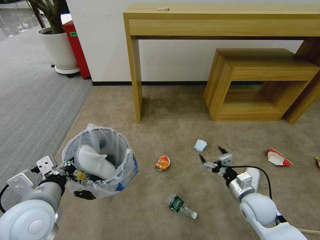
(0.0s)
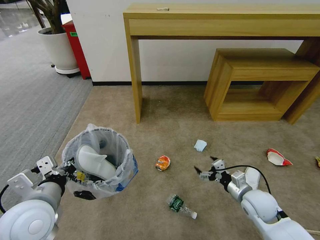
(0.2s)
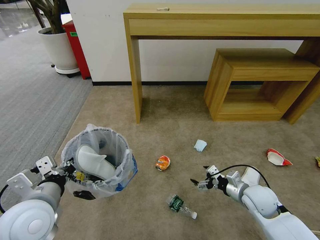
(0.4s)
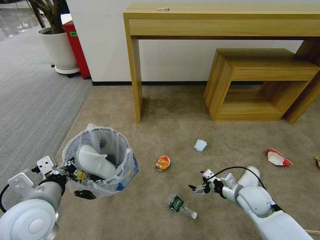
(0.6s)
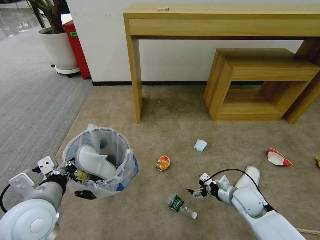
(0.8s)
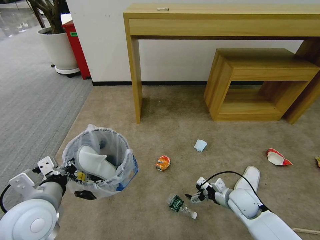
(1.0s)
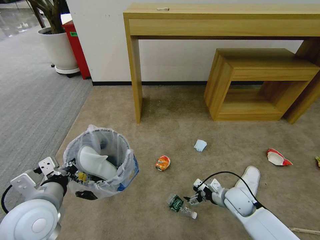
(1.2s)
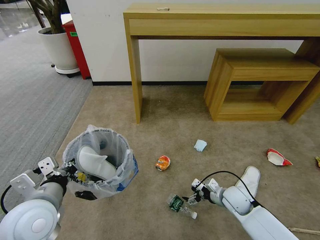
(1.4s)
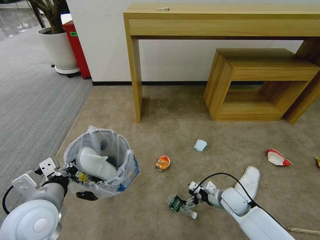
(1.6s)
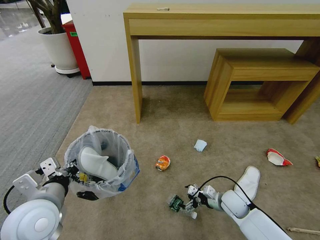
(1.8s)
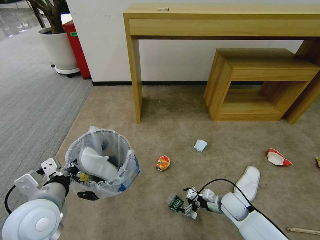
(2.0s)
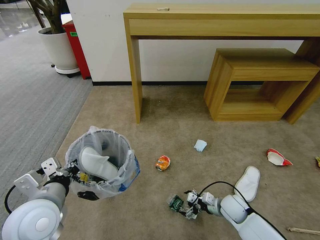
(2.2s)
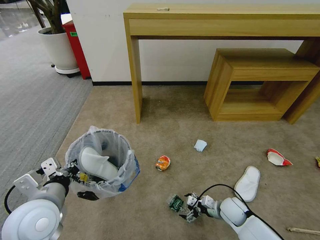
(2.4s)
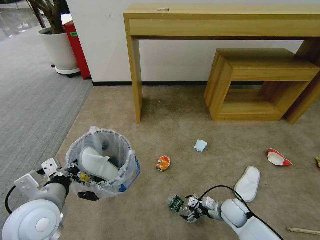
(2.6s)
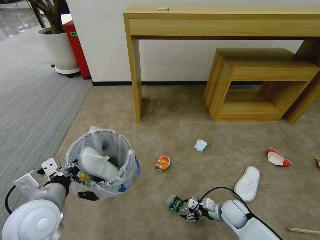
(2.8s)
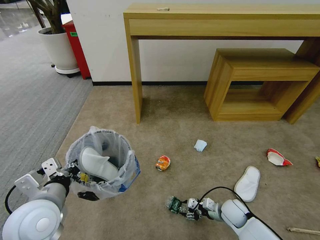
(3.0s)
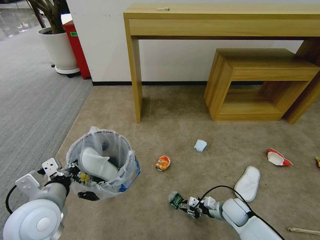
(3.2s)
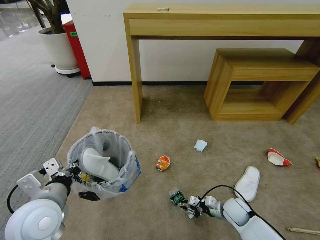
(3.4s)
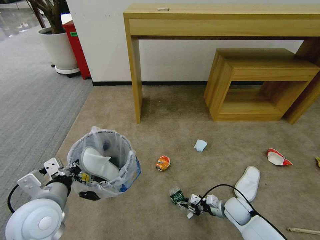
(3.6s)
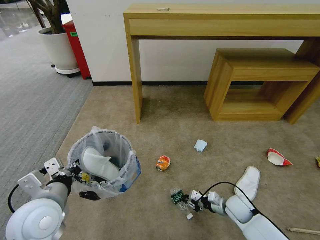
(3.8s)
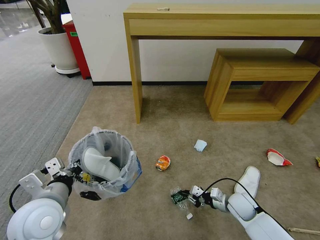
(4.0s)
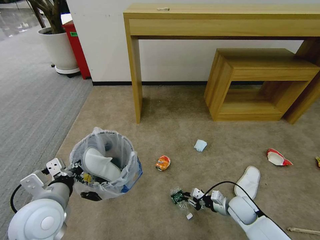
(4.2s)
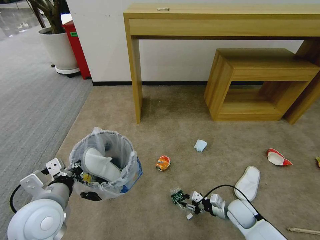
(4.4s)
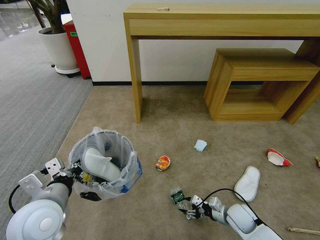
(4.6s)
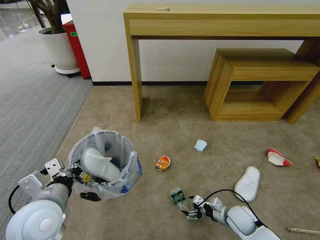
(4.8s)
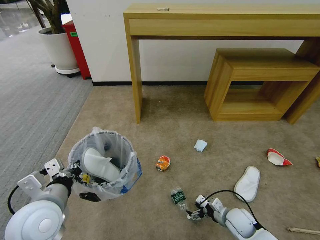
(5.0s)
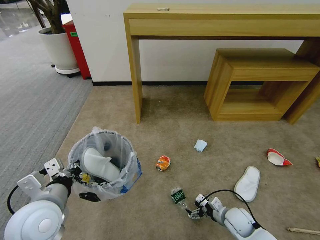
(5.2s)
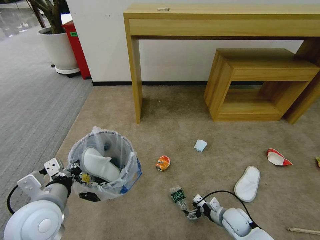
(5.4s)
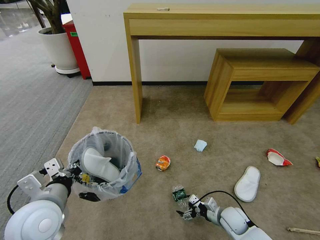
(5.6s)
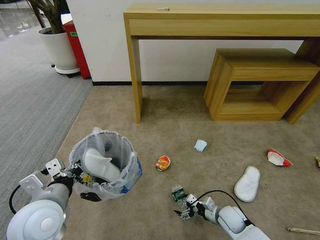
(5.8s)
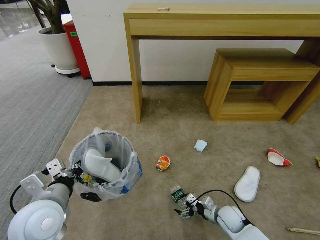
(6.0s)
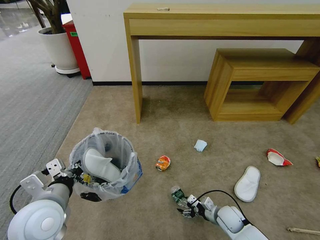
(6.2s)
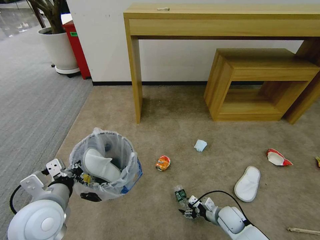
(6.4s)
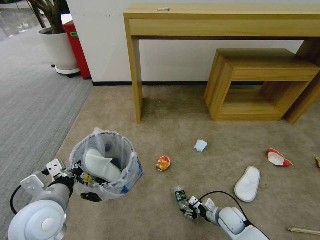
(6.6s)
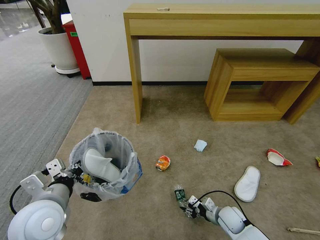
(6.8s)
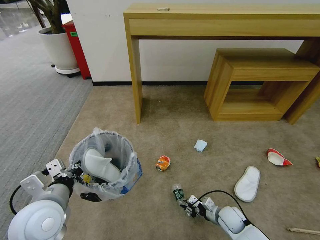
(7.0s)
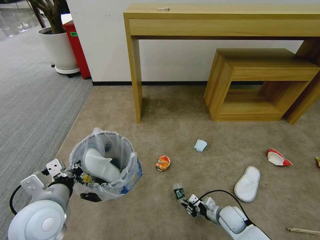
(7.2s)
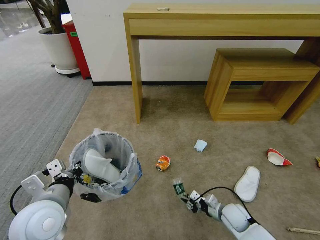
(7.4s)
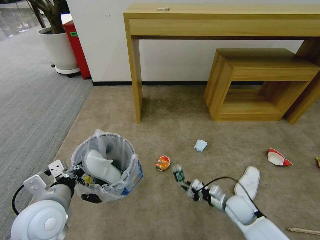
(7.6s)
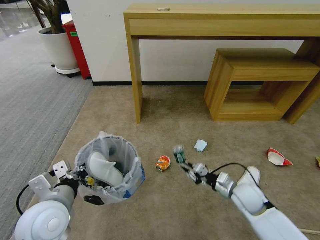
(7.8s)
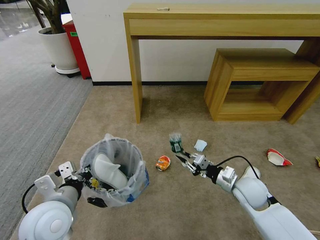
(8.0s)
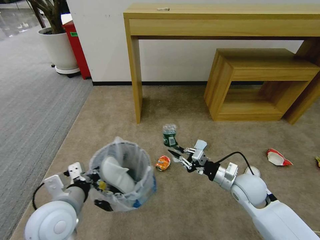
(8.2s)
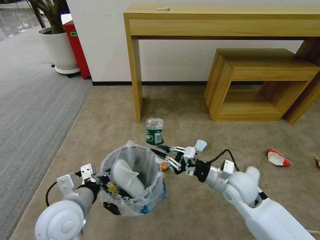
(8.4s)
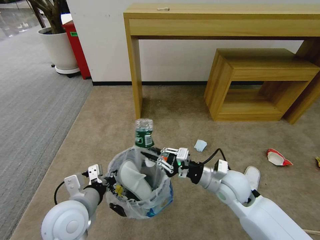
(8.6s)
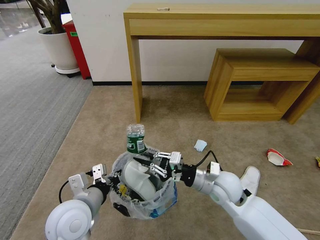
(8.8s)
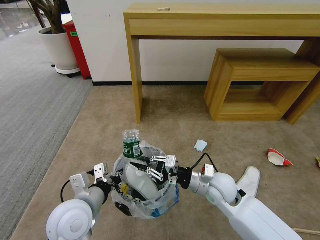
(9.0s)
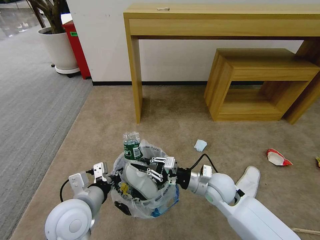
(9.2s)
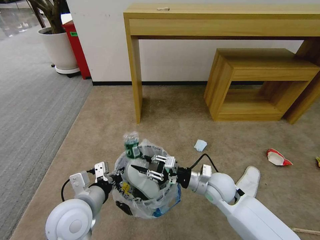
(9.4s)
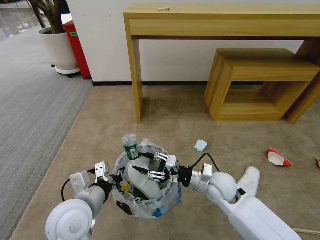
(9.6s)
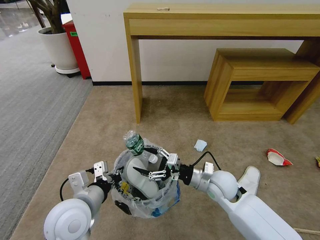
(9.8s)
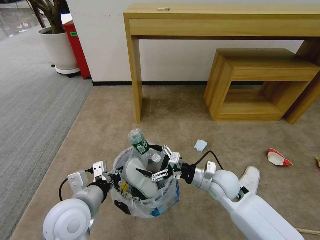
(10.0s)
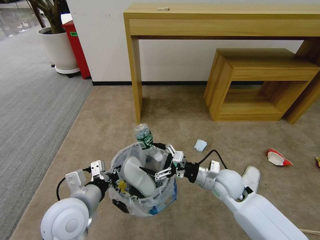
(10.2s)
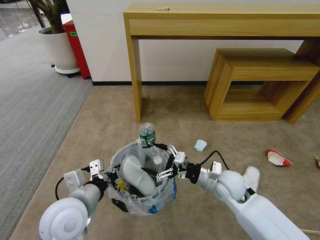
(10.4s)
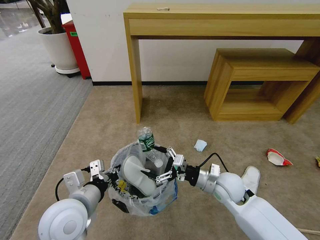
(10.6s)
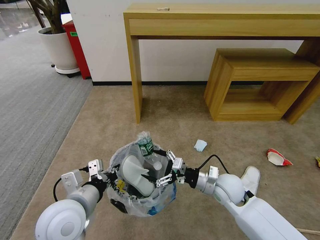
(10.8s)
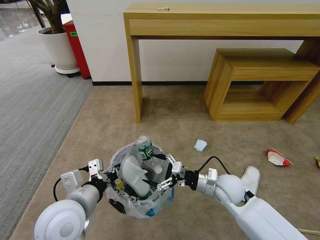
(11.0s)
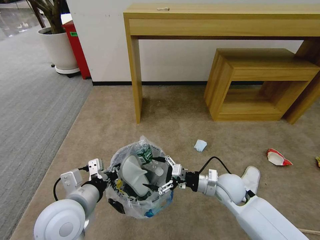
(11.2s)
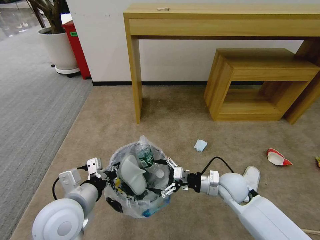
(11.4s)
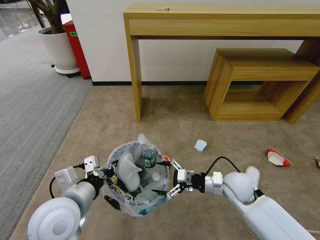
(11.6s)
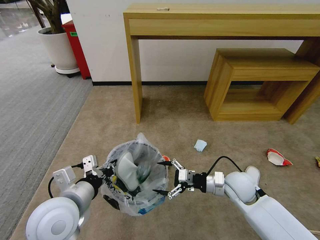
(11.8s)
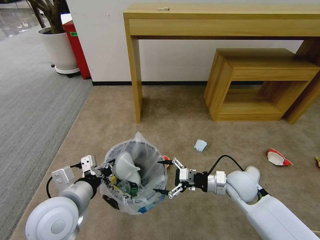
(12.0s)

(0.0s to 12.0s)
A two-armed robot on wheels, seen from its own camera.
Task of the whole recording: Pick up the trash bin and place the garbage on the floor into it.
0.0s - 1.6s: The right gripper travels downward by approximately 5 cm.
1.6s - 3.0s: The right gripper heads downward, covering some 5 cm, and closes up.
3.0s - 4.4s: The grippers stay close to where they were, moving slightly.
4.4s - 6.0s: The right gripper moves some 5 cm, and opens up.
6.0s - 7.6s: The right gripper goes about 5 cm upward, and closes up.
7.6s - 9.0s: The right gripper heads upward and to the left, covering roughly 15 cm, while the left gripper shifts about 5 cm to the right.
9.0s - 10.4s: The right gripper opens up.
10.4s - 12.0s: There are only small adjustments of the grippers.

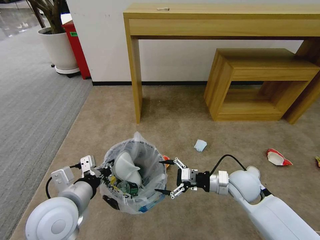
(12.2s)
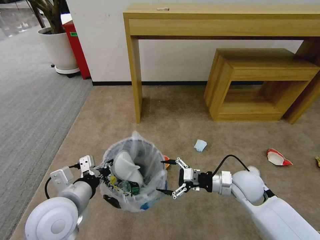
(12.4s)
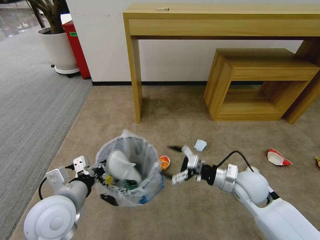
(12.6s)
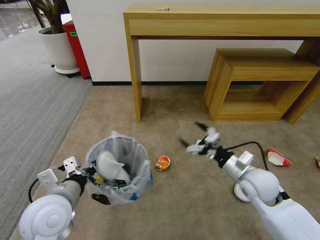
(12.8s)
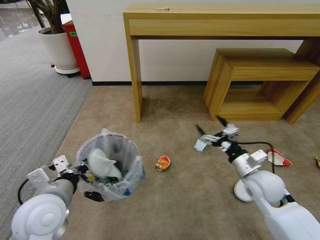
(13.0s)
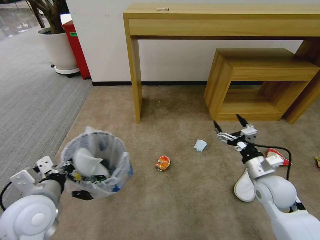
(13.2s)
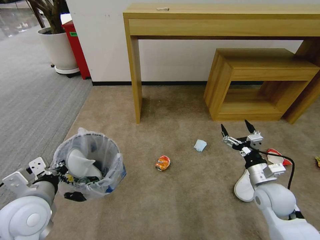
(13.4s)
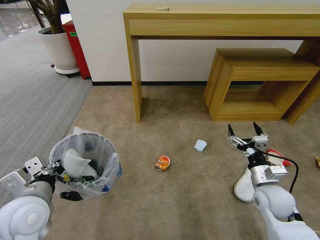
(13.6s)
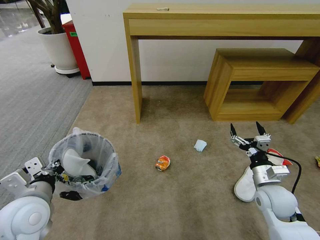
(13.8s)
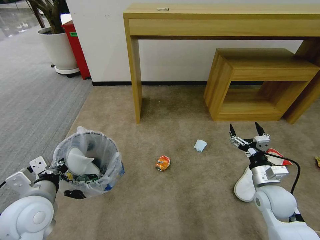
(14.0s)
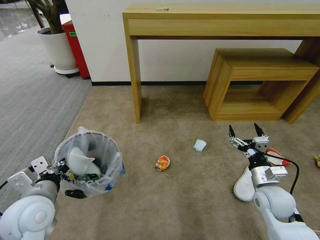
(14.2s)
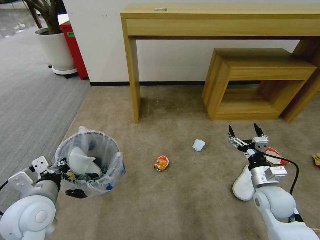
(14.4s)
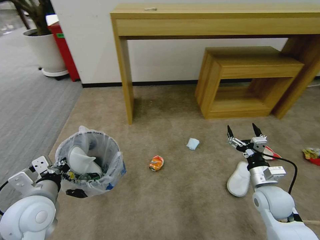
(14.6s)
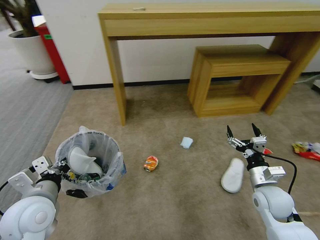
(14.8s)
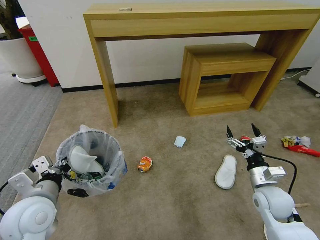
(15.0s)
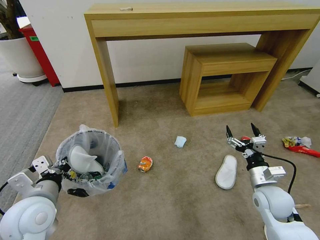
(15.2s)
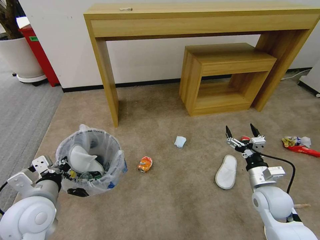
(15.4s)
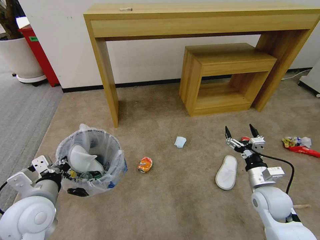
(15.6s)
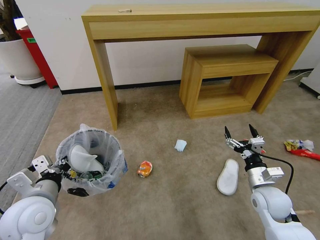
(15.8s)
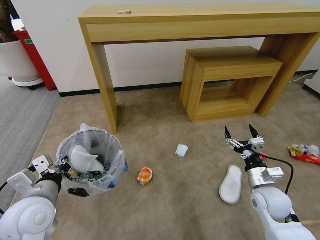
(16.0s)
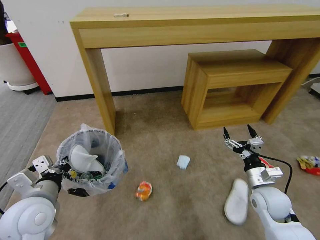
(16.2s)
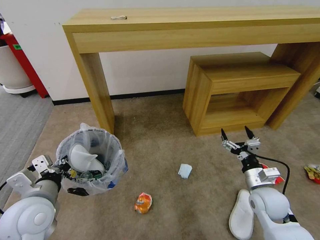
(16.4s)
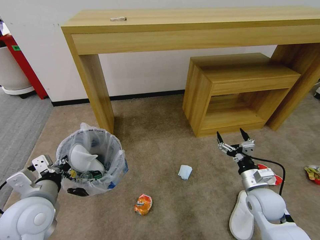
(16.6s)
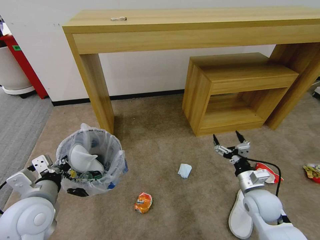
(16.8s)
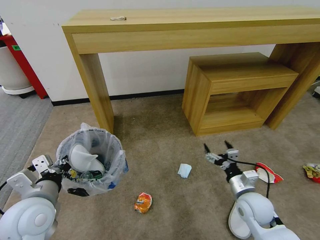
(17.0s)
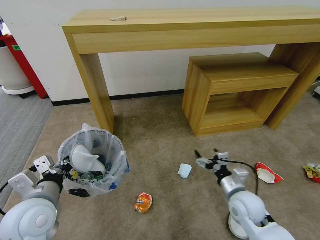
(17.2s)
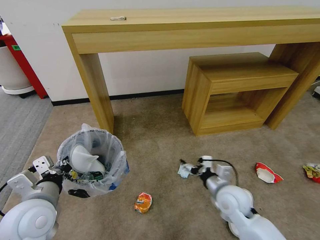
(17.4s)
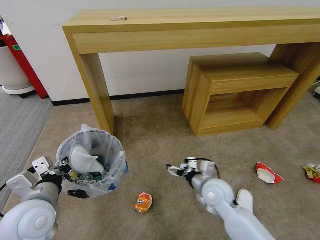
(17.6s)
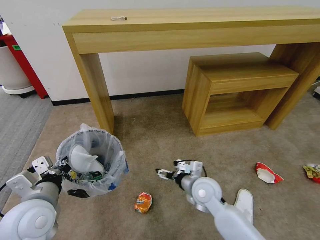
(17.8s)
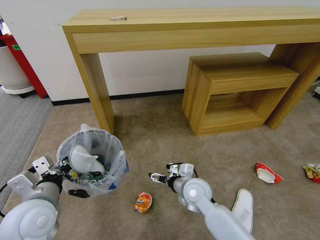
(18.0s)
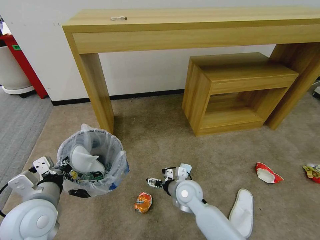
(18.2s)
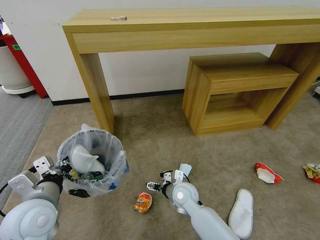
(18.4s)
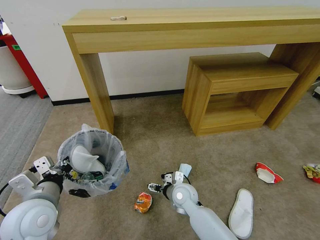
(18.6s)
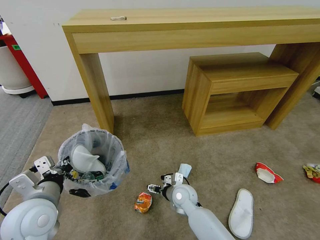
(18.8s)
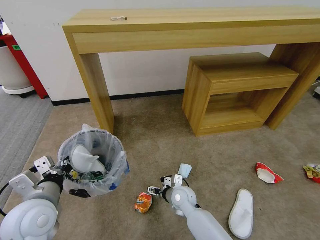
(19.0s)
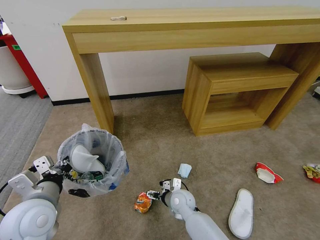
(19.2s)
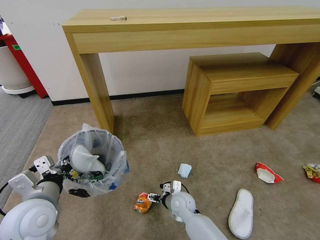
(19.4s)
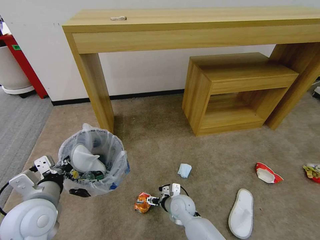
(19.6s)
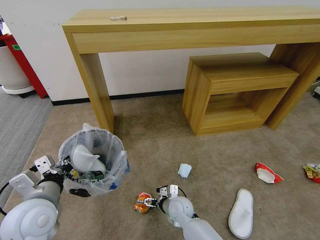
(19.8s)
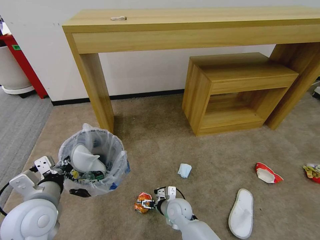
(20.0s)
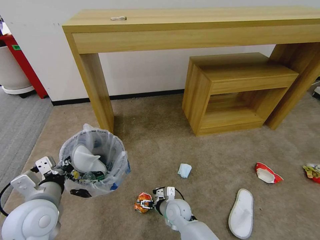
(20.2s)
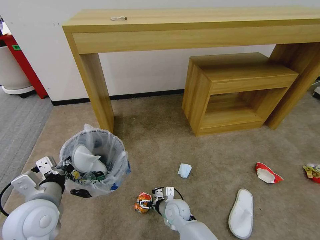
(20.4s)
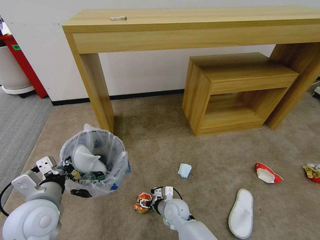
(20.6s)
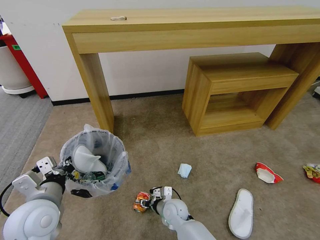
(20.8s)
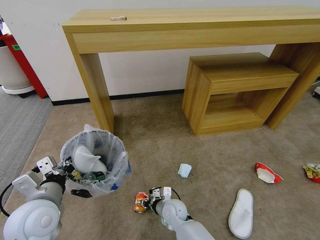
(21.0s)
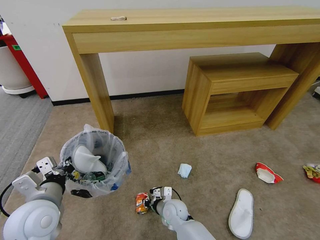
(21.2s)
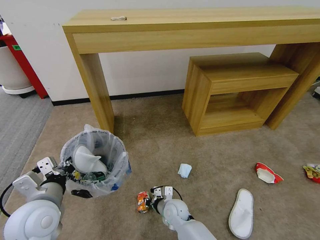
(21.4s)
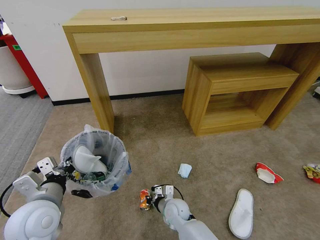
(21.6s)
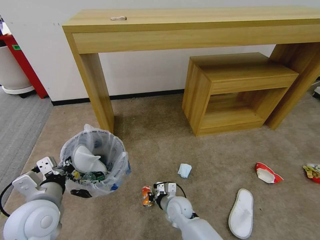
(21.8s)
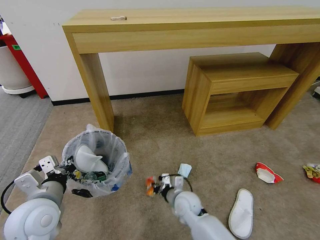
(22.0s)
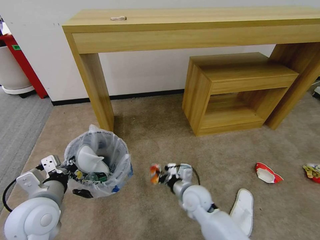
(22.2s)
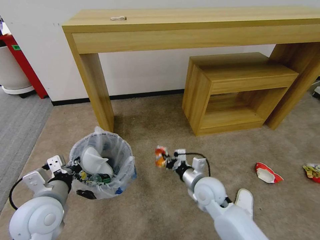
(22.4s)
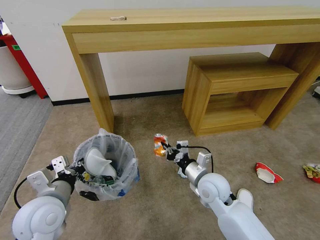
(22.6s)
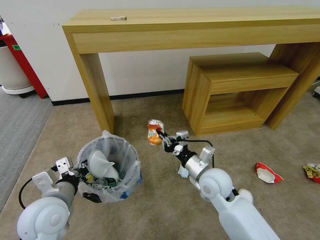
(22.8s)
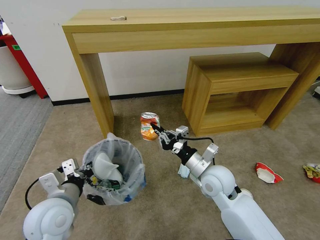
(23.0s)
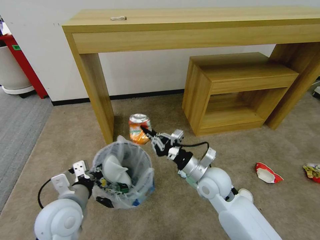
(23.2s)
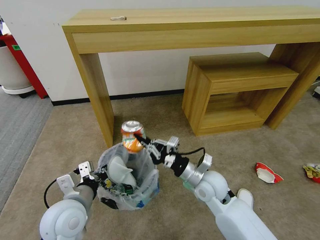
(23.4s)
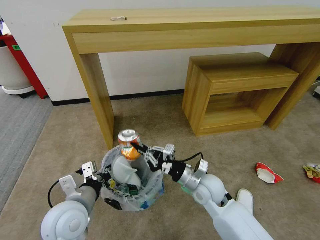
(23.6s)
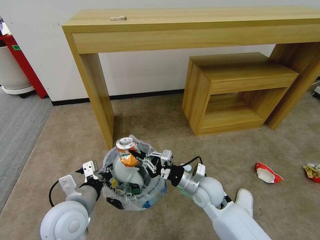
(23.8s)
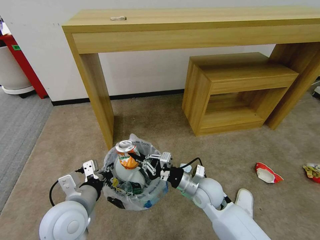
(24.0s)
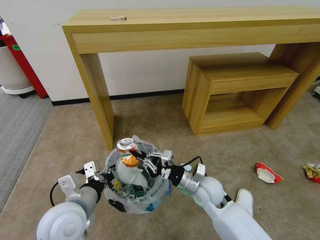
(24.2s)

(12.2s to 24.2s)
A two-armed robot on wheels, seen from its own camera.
Task of the whole recording: Pick up the trash bin and place the garbage on the floor into it.
12.2s - 13.8s: The left gripper goes approximately 10 cm to the left. The right gripper shifts about 10 cm to the right.
16.6s - 18.2s: The right gripper travels to the left by roughly 25 cm.
18.2s - 19.8s: The right gripper travels downward by roughly 10 cm.
19.8s - 21.2s: The right gripper closes its fingers.
21.2s - 22.6s: The right gripper heads upward and to the right, covering roughly 20 cm.
22.6s - 24.2s: The left gripper travels to the right by some 5 cm.
